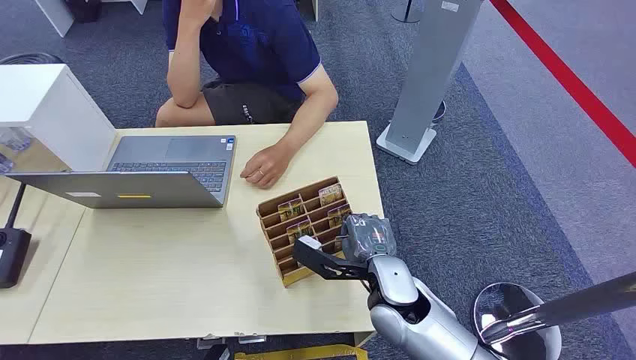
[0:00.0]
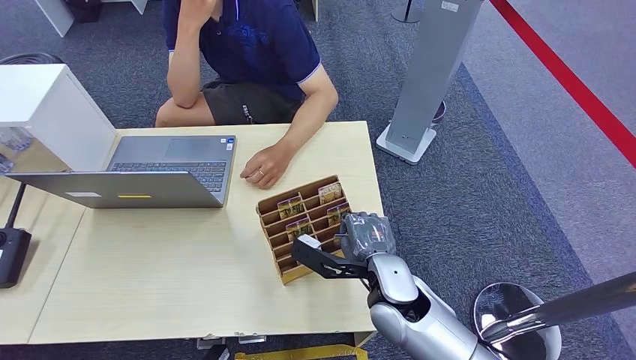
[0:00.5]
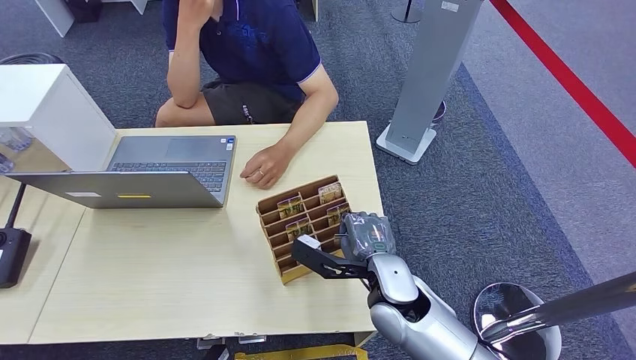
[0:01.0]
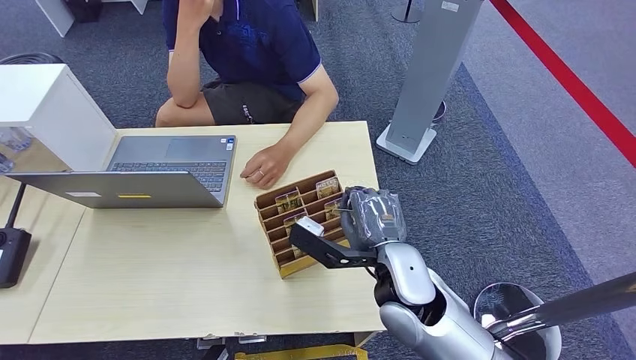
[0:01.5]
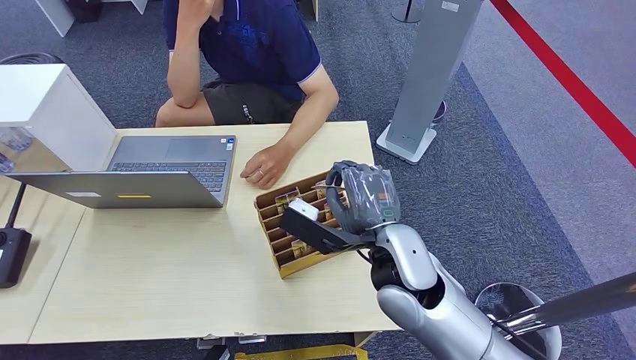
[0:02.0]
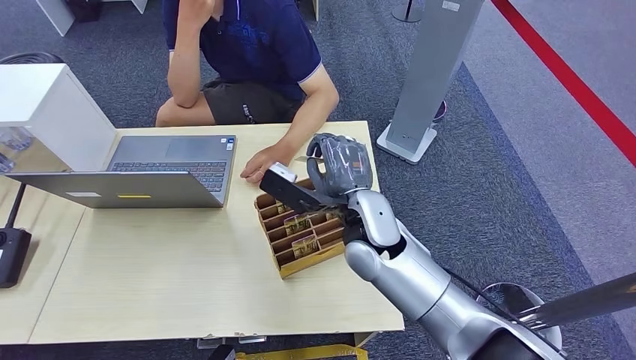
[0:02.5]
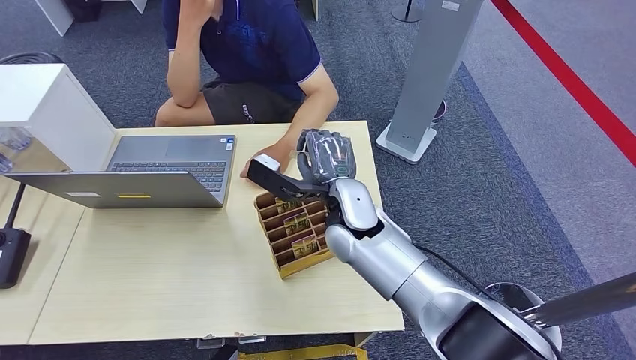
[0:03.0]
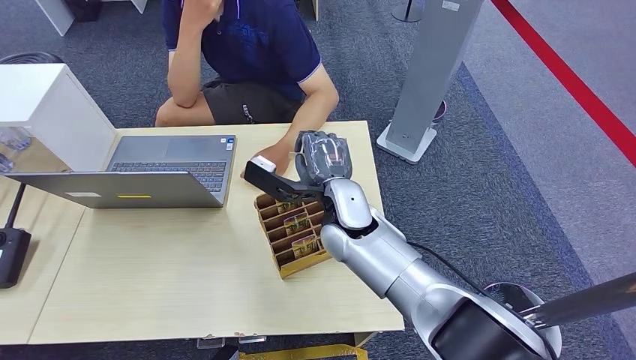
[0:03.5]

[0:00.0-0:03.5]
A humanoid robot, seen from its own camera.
Step, 0:00.0 to 0:01.0: Pick up the room card from the card holder.
Step, 0:02.5 to 0:03.5: Hand the room card to the target.
0:02.0 to 0:03.5: The right hand shifts roughly 10 cm forward and to the left.
